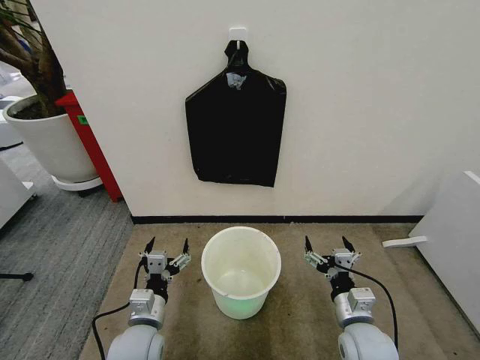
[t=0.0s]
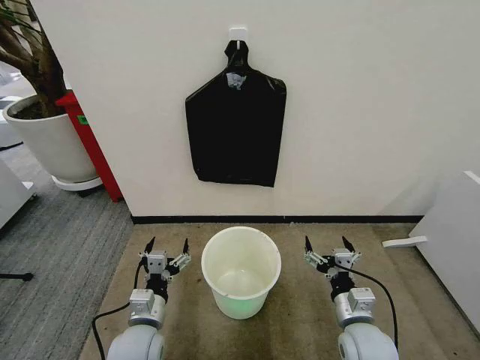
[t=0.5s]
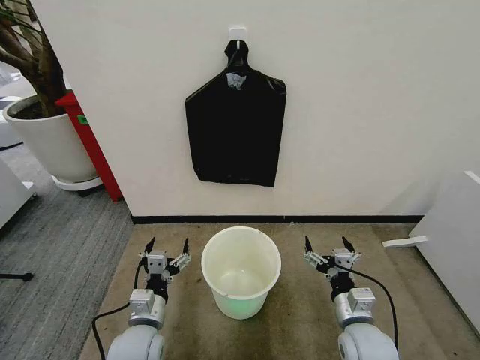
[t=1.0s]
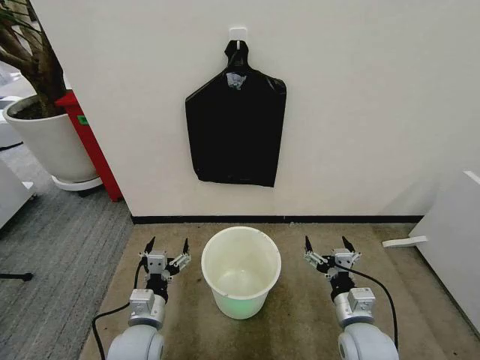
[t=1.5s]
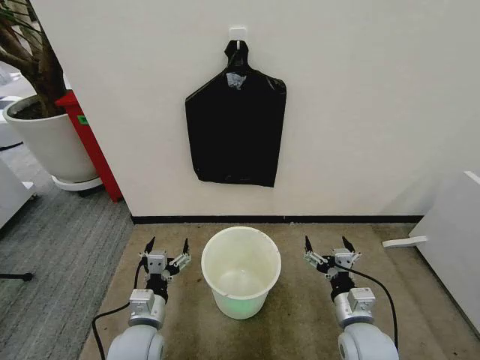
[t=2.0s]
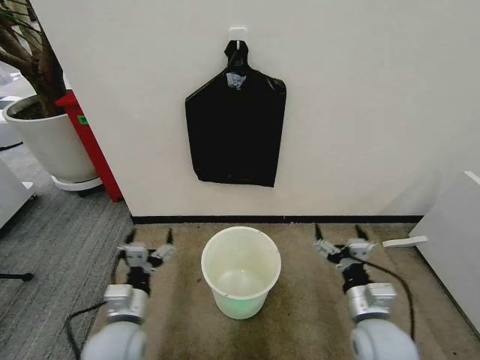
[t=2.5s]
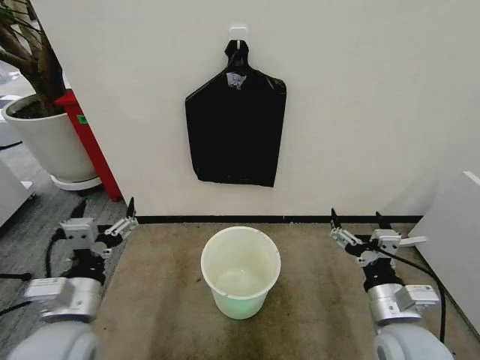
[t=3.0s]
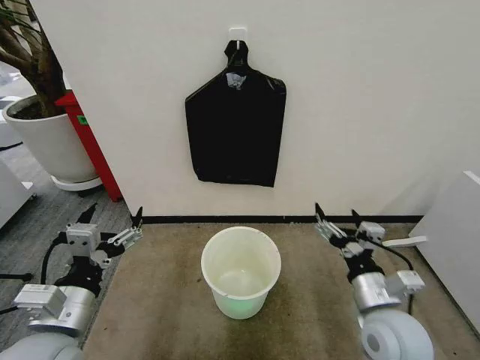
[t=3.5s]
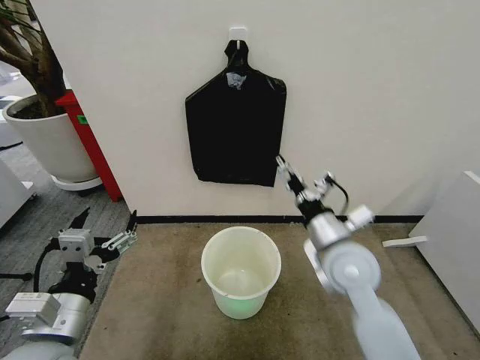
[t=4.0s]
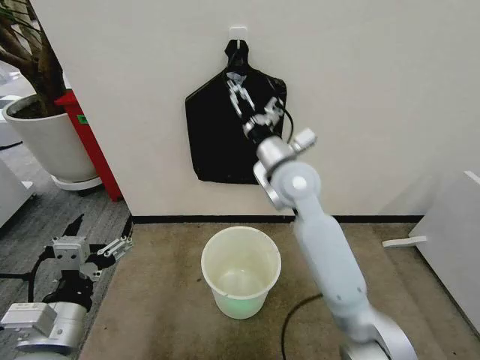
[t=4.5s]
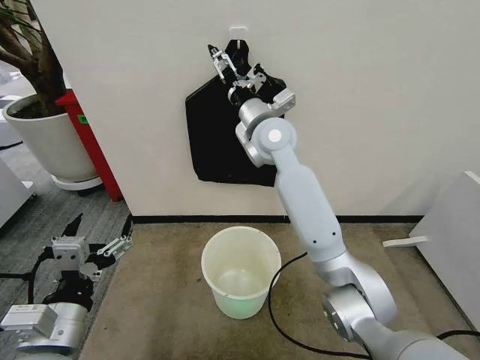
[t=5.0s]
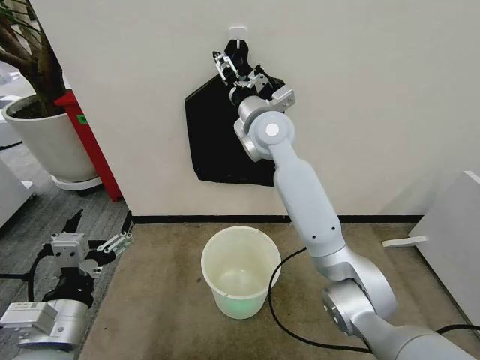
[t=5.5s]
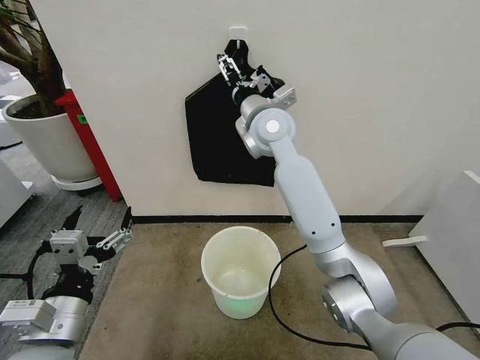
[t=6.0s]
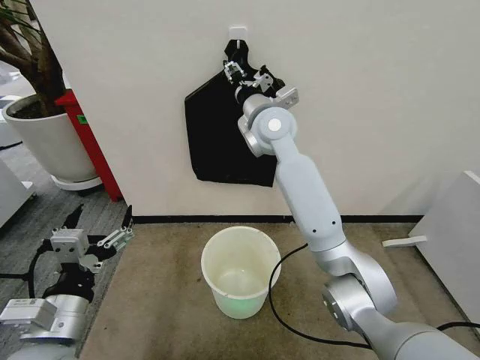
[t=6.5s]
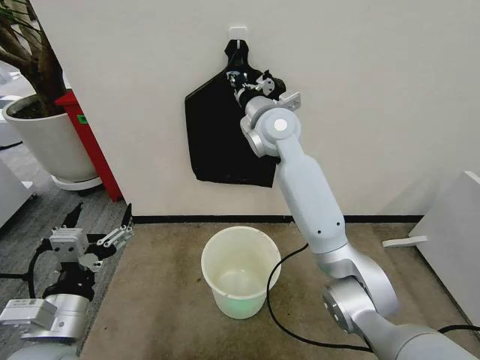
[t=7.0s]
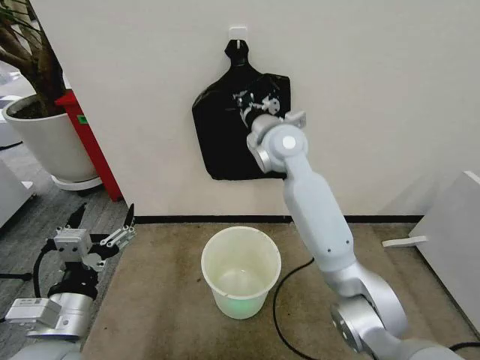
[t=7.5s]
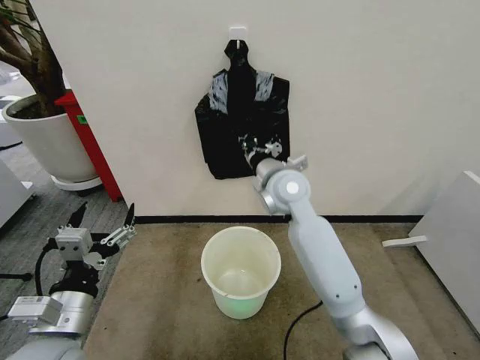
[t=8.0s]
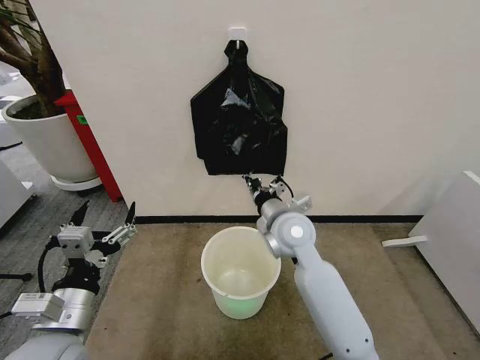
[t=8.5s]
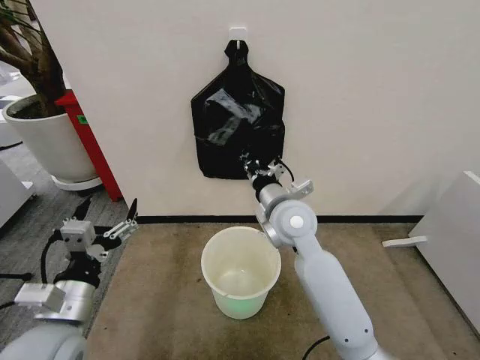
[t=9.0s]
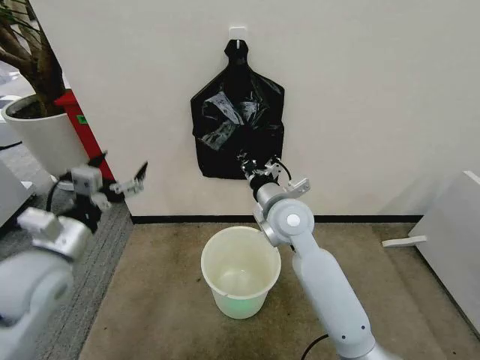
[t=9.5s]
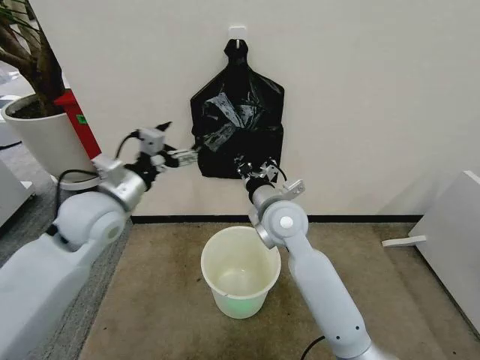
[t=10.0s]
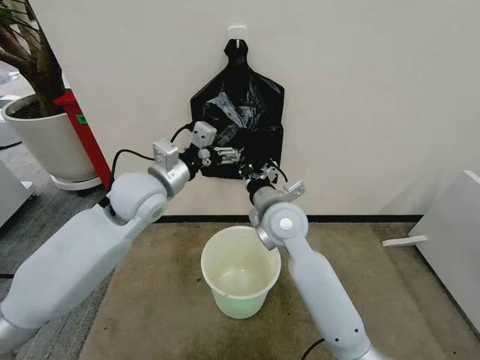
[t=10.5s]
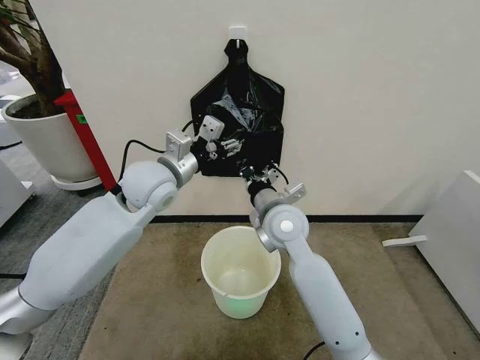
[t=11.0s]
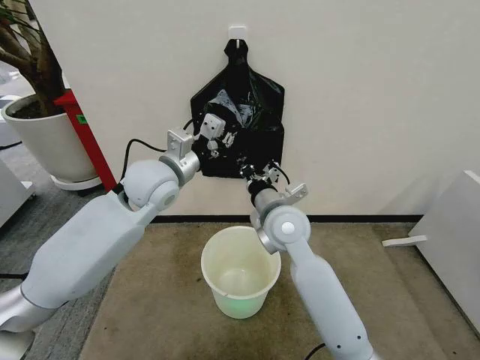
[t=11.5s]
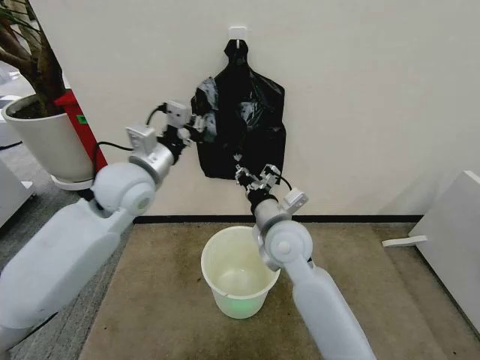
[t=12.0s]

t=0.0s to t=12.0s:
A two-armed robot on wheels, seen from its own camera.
Task of the whole recording: Place the garbage bag over the trash bin.
t=2.0s to t=4.0s: The left gripper is displaced upward and to the left by some 20 cm. Meanwhile the right gripper goes roughly 20 cm upward and forward.
t=4.0s to t=6.0s: The right gripper heads forward, upward and to the left, covering approximately 30 cm.
t=6.0s to t=8.0s: The right gripper travels downward and backward by some 15 cm, and closes up.
t=8.0s to t=10.0s: The left gripper is displaced forward and upward by about 20 cm; the right gripper shifts approximately 5 cm backward.
t=10.0s to t=12.0s: The left gripper is displaced to the right and forward by about 10 cm, and closes.

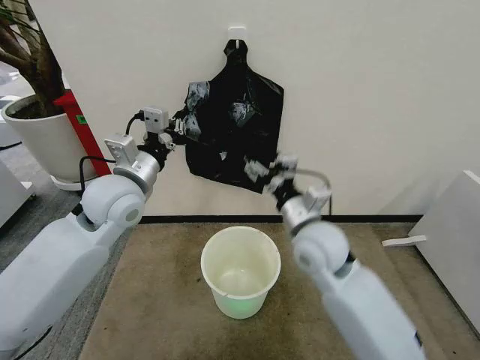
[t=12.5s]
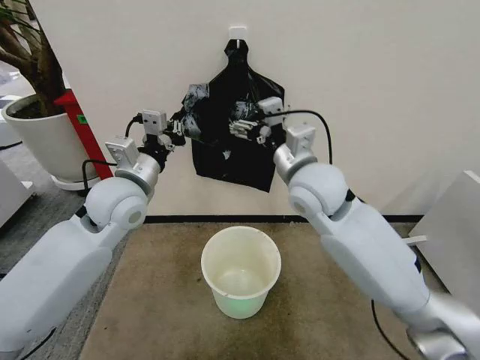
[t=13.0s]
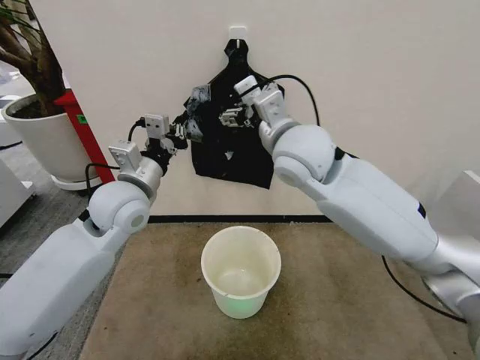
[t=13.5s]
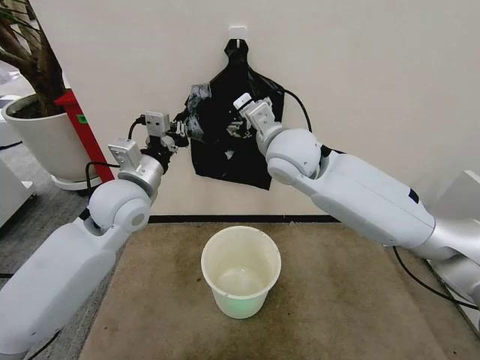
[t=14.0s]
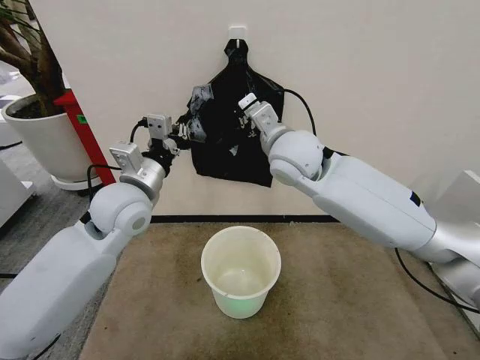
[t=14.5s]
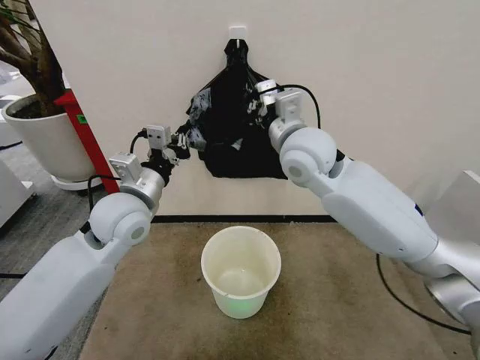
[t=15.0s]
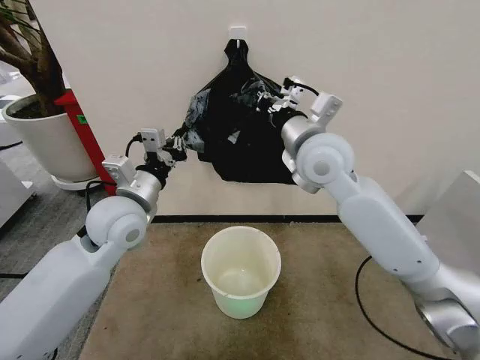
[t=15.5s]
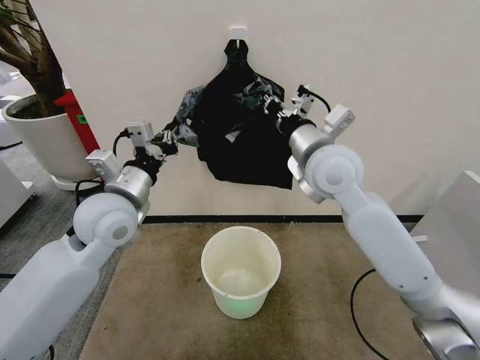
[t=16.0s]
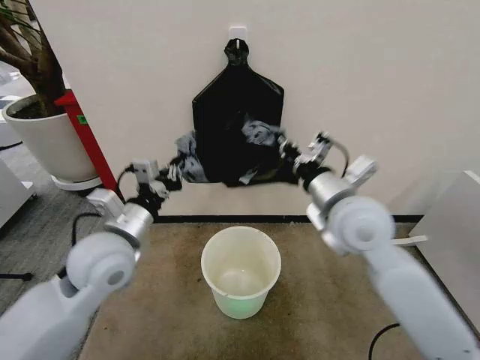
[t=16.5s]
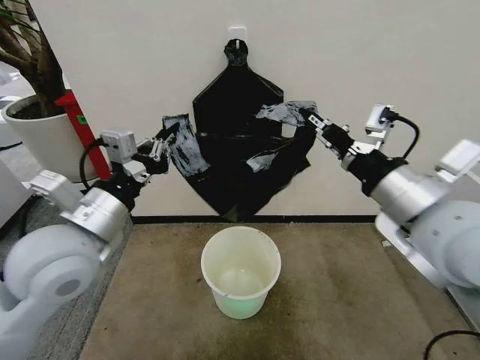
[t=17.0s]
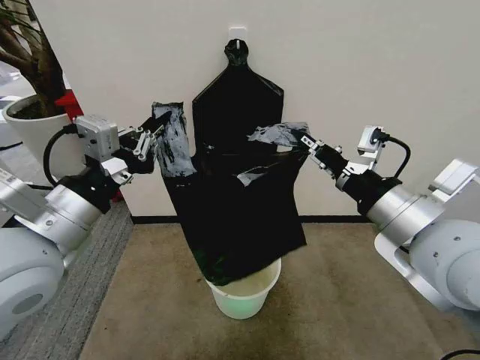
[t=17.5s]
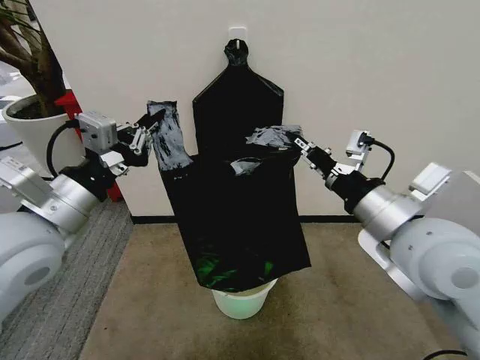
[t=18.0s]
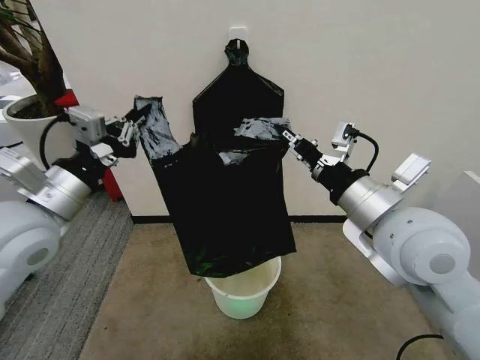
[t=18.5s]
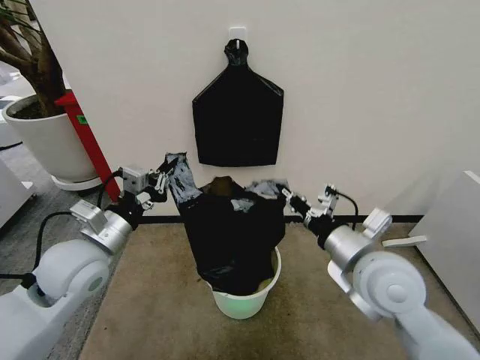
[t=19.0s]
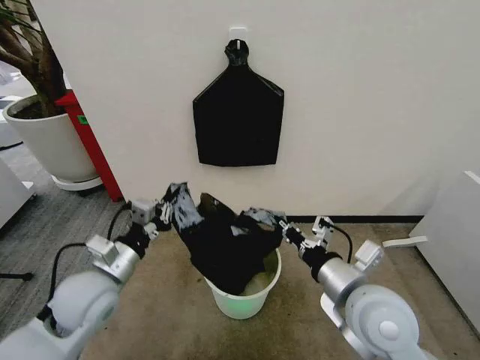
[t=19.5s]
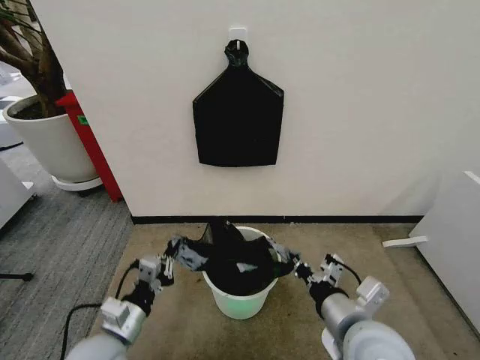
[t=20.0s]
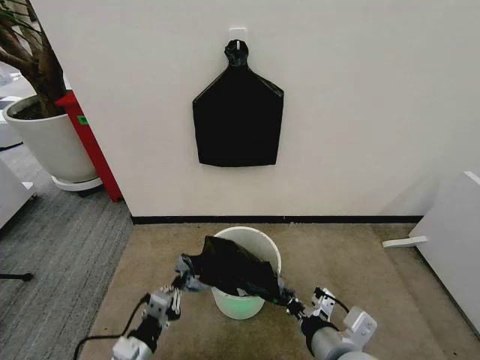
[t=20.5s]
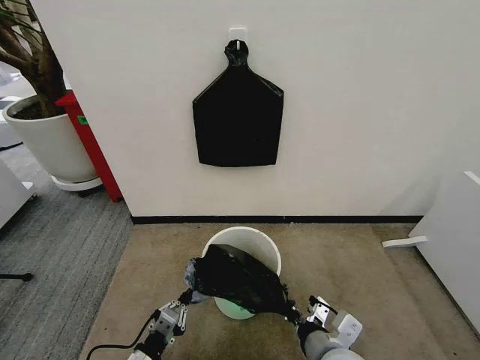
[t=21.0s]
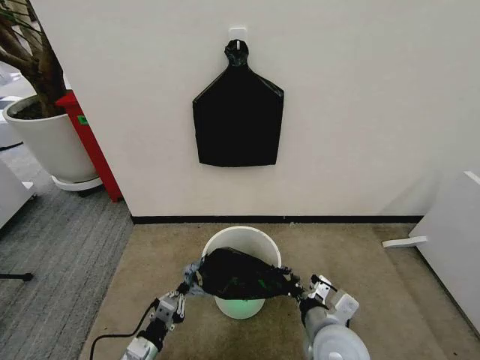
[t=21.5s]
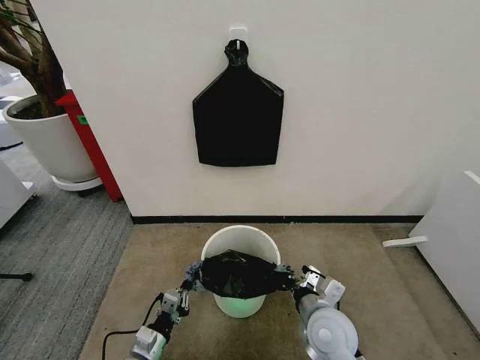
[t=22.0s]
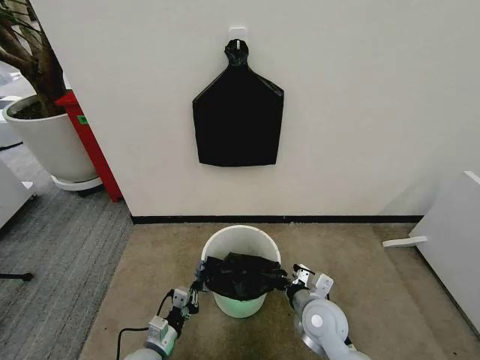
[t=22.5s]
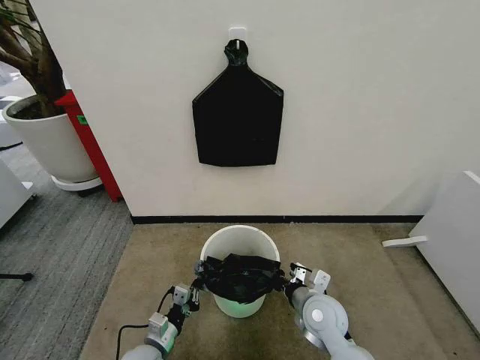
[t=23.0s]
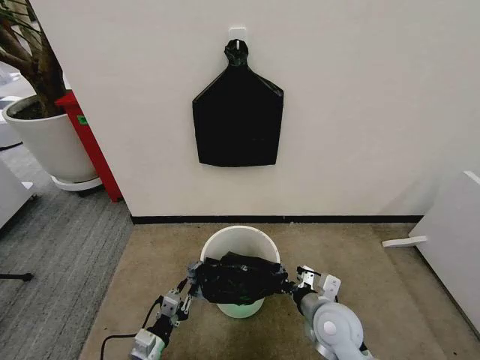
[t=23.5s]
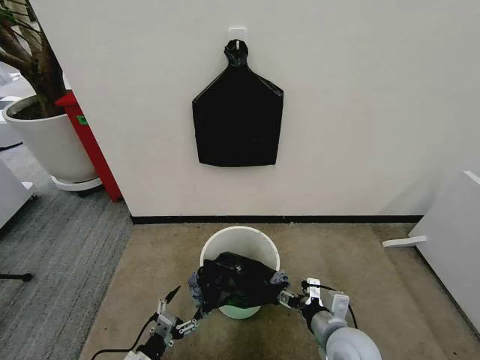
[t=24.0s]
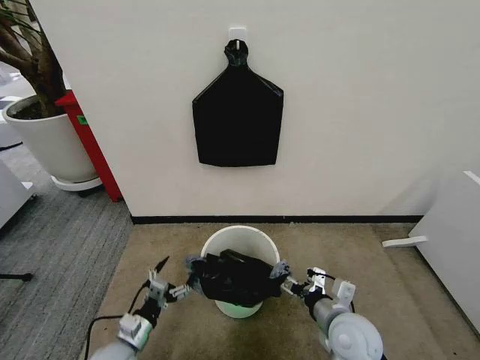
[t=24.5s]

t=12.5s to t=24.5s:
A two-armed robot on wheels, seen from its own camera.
Task of the whole recording: Place the garbage bag over the trash bin.
t=12.5s to t=14.5s: The right gripper travels upward and forward by approximately 20 cm, and closes.
t=14.5s to t=16.5s: The left gripper travels backward by about 10 cm, while the right gripper moves backward, to the right and downward, roughly 15 cm.
t=16.5s to t=18.5s: The right gripper shifts some 5 cm backward, while the left gripper is displaced upward and to the left by approximately 10 cm.
t=18.5s to t=20.5s: The right gripper shifts roughly 20 cm downward and backward, while the left gripper shifts some 35 cm downward and backward.
t=20.5s to t=22.5s: Both grippers travel together downward and forward, about 15 cm.
t=22.5s to t=24.5s: The right gripper changes place by about 5 cm, and opens up; the left gripper is displaced to the left by approximately 5 cm, and opens.

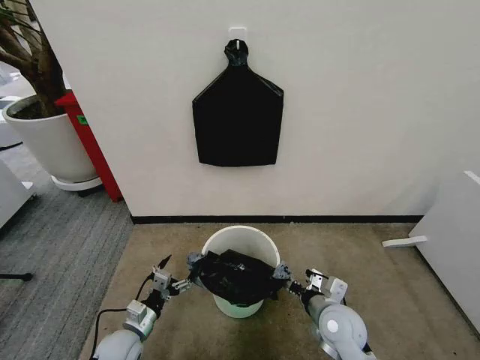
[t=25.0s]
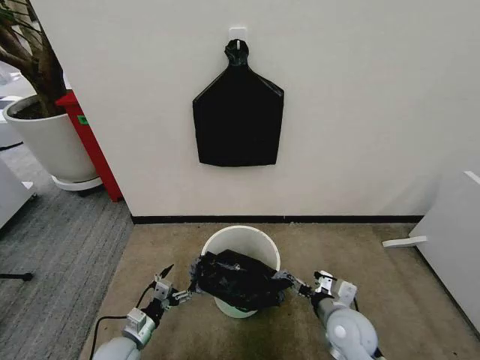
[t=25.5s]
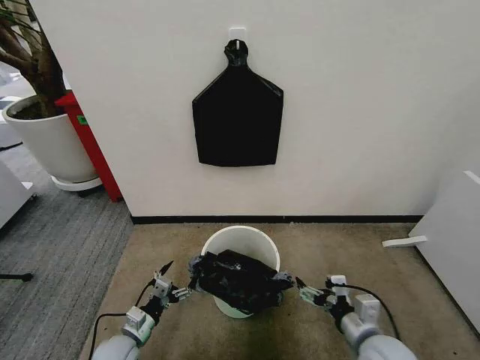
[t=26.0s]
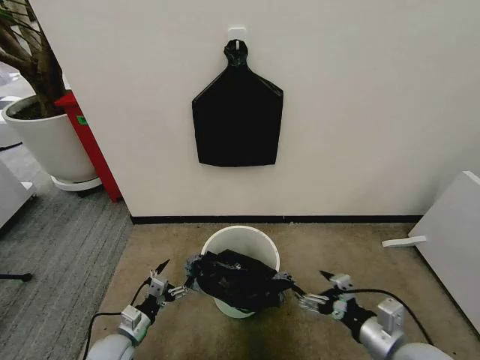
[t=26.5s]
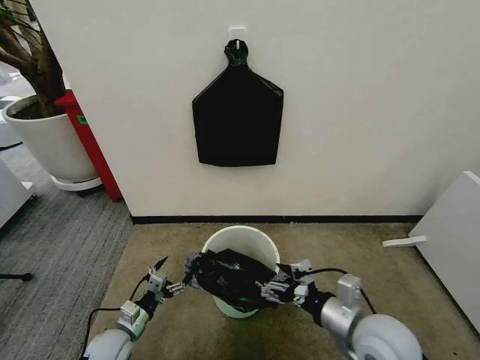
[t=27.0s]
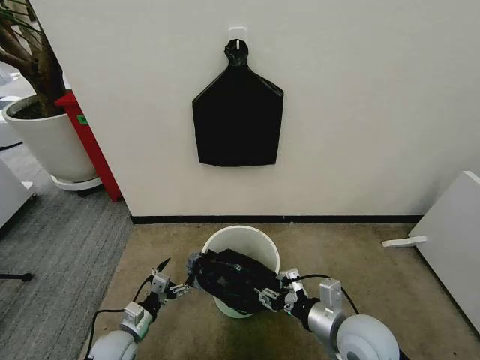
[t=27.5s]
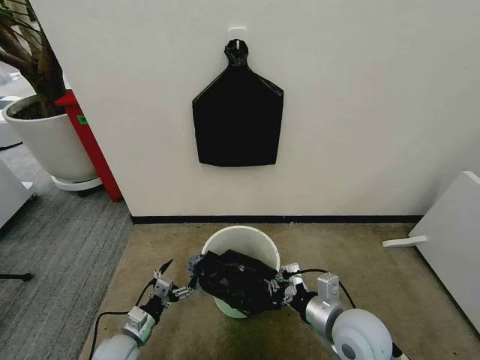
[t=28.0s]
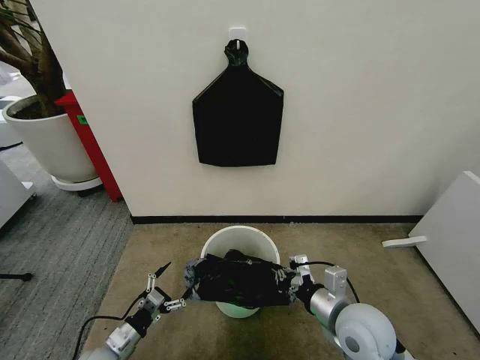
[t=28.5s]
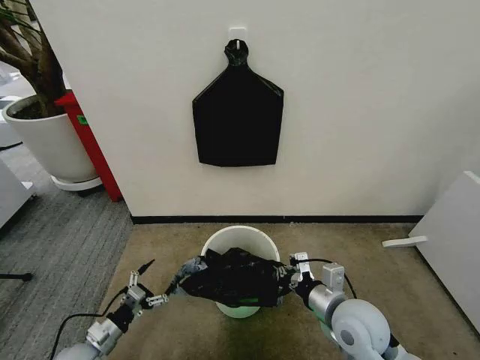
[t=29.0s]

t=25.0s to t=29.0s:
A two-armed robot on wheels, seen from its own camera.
Task of the whole recording: Place the garbage bag over the trash bin.
t=25.0s to t=27.0s: The right gripper moves upward and backward, roughly 15 cm.
t=27.0s to t=29.0s: The right gripper changes place by approximately 5 cm, and closes up. The left gripper heads to the left, covering some 5 cm.
